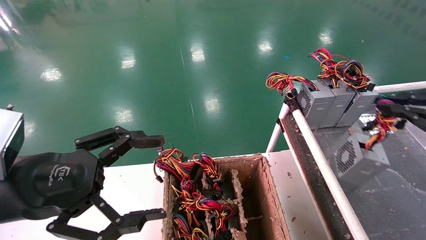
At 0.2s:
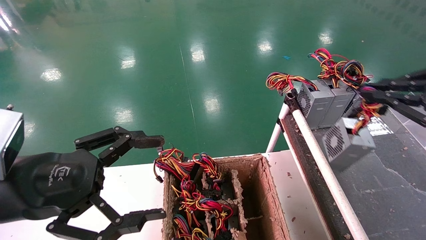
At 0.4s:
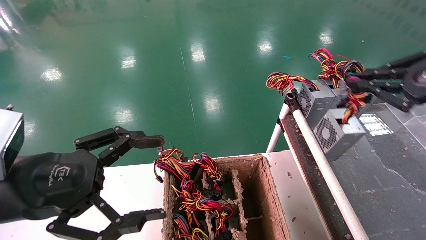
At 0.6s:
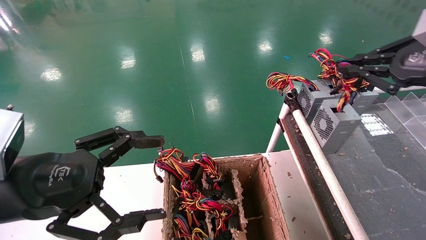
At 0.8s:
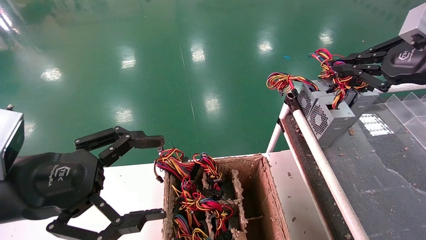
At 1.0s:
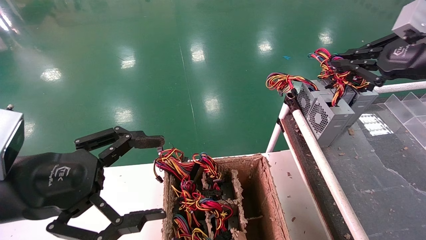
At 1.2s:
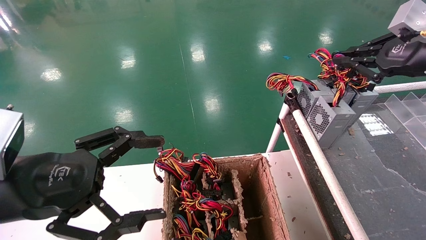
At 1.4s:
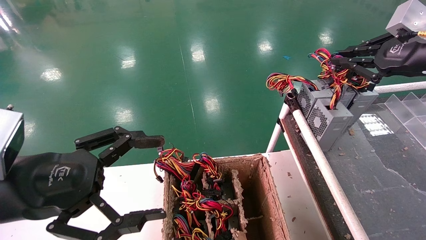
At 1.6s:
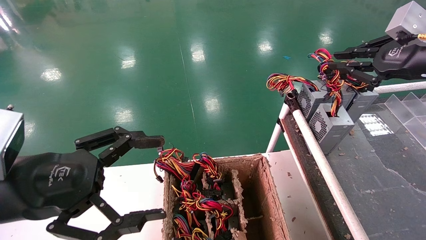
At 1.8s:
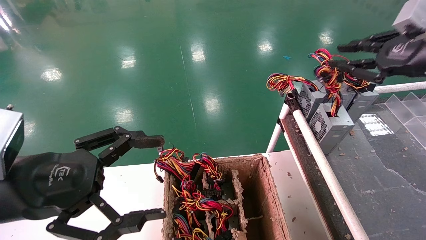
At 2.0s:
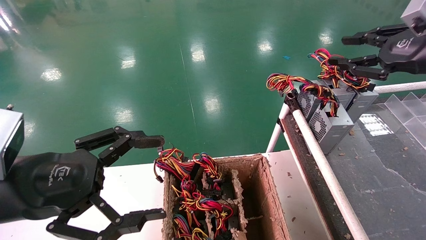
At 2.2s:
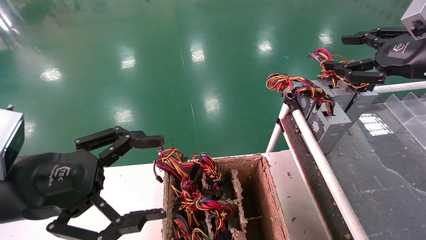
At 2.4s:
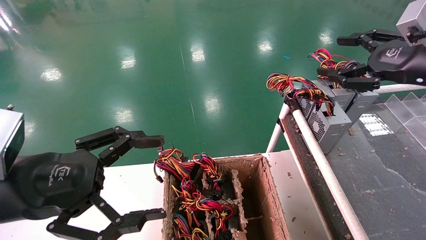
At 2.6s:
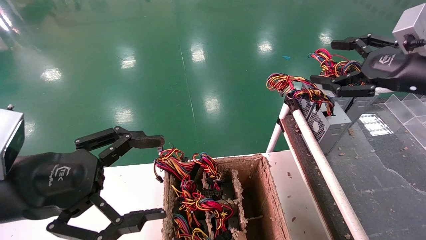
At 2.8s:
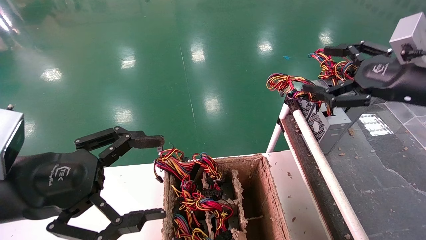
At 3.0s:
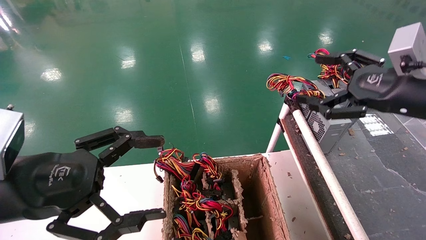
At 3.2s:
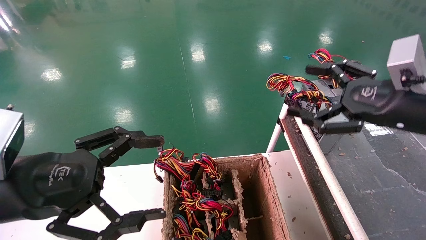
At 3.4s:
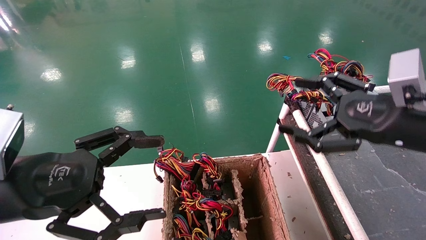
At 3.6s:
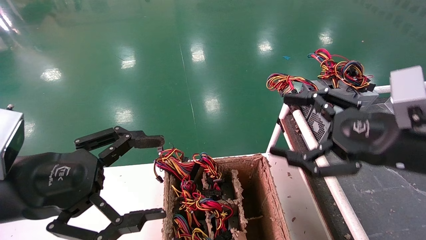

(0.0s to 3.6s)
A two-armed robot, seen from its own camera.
Step, 0.0s - 2.2s: Place the power supply on the operating table.
0.0s - 1.8s: The right gripper is displaced forward, upward and to the left by approximately 15 cm.
1.8s - 3.6s: The right gripper goes roughly 15 cm downward, to the left and backward, and opens its fingers.
